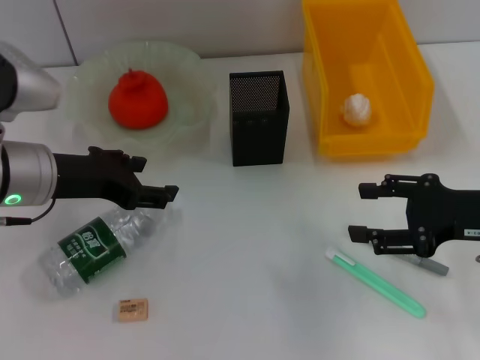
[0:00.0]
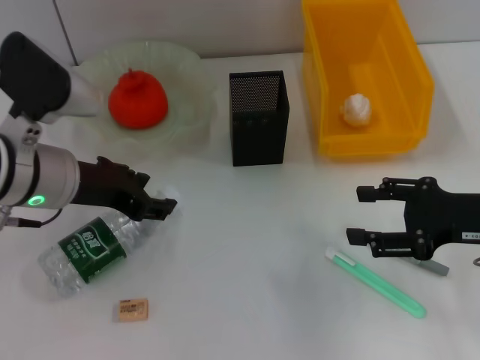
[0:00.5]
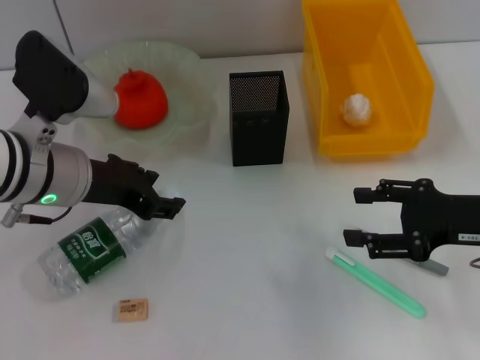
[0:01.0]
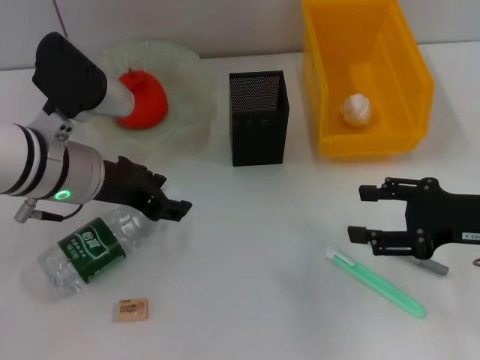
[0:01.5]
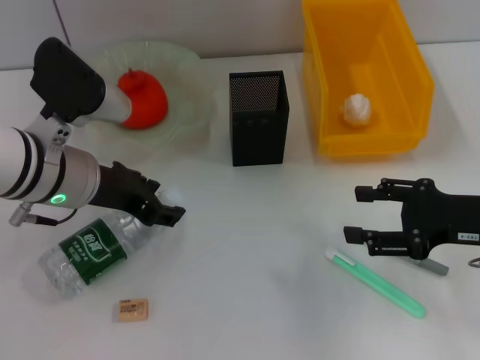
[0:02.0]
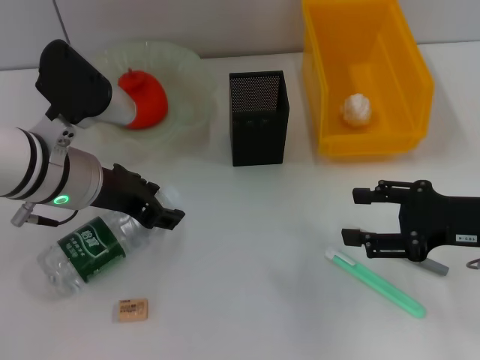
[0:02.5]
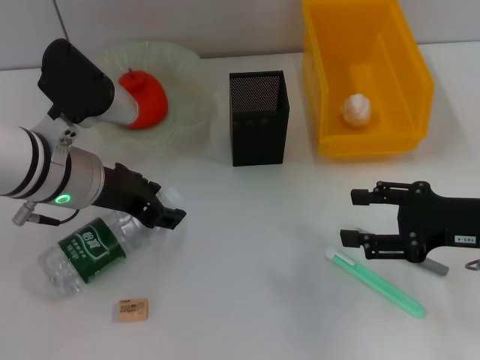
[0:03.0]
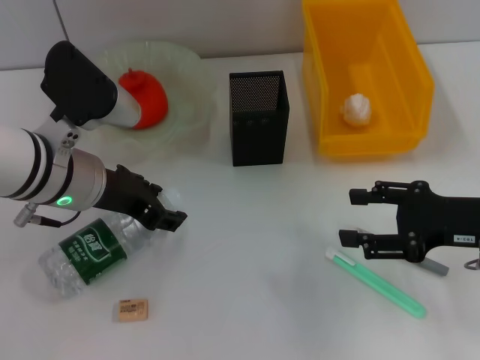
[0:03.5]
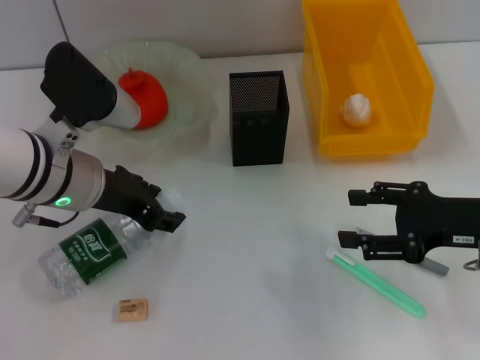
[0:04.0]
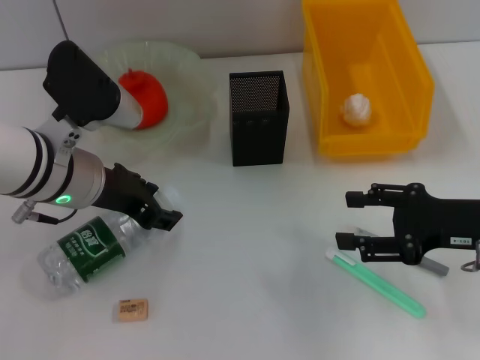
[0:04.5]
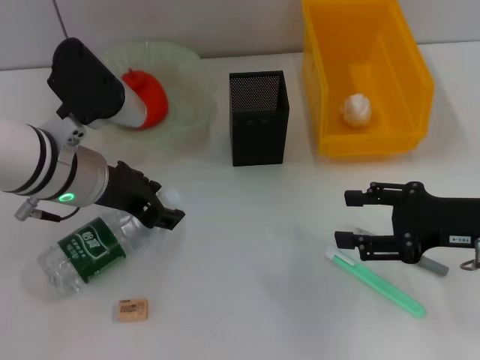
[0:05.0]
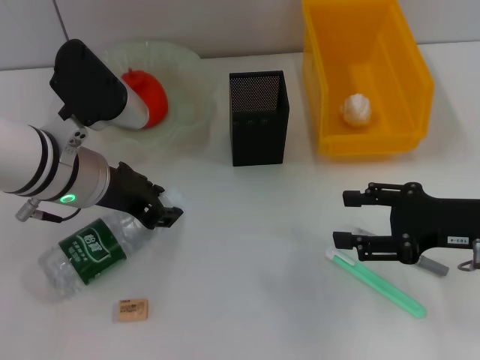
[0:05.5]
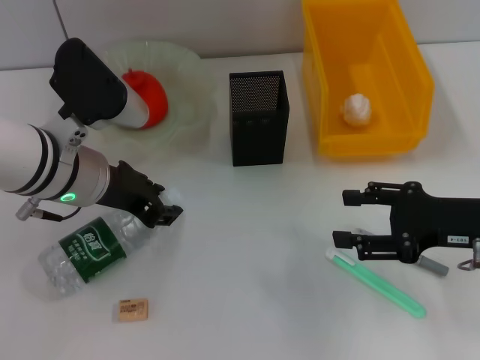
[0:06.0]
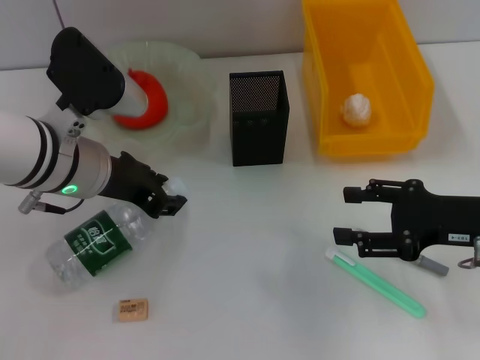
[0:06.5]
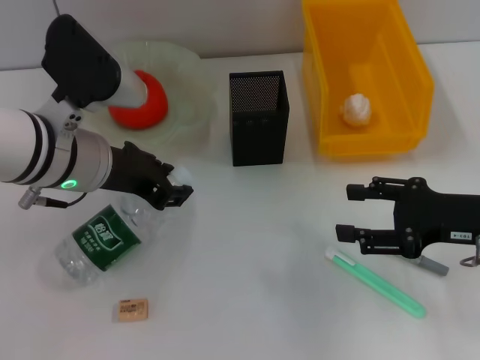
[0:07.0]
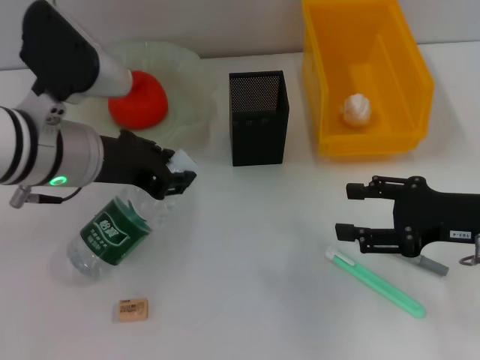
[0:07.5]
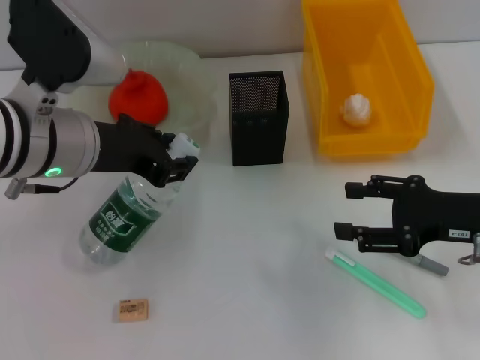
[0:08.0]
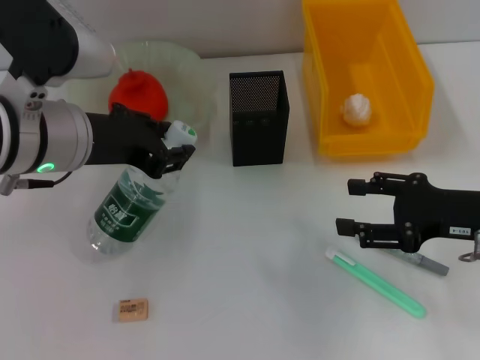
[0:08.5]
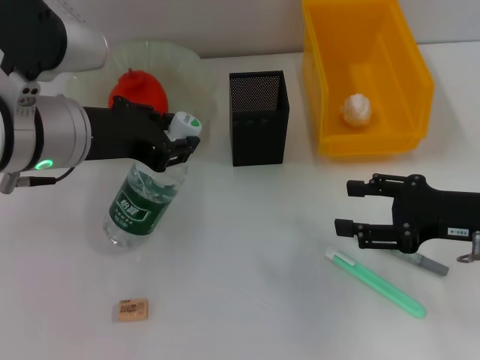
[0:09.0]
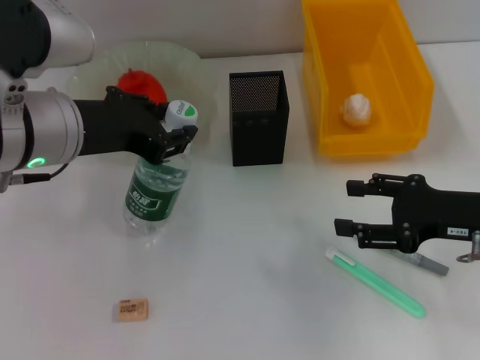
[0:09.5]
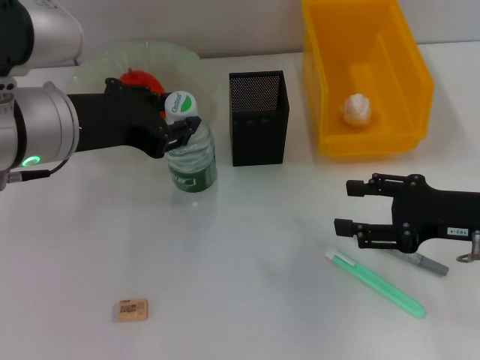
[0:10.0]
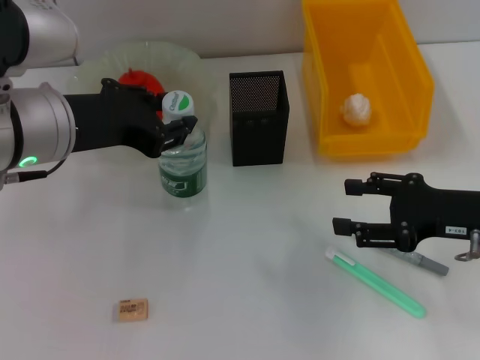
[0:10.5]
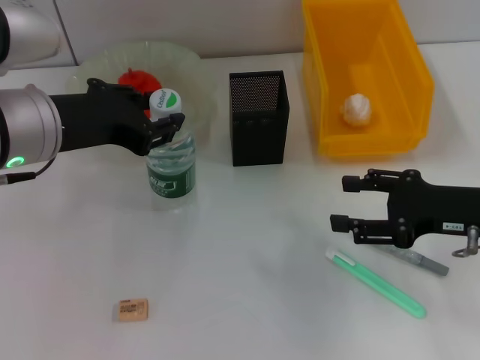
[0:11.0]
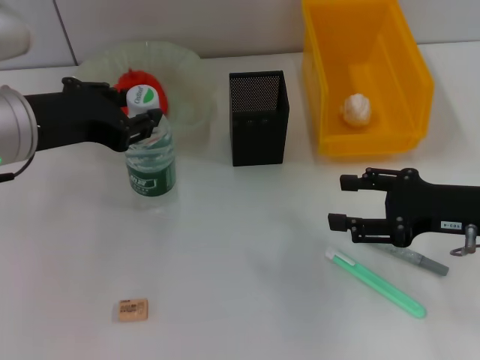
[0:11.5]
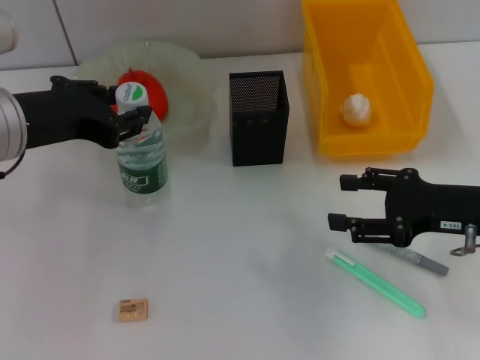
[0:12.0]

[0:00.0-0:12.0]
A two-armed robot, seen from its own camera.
Step, 0:00.0 to 0:05.5: Grab the water bottle with the left hand.
0:00.0 to 0:02.0: The grippers make only small movements.
0:02.0 to 0:04.0: Neither gripper changes place.
0:04.0 to 0:06.0: Both grippers stay put.
0:06.0 to 0:08.0: The left gripper shifts by approximately 5 cm.
0:08.0 to 0:12.0: The grippers move only a little.

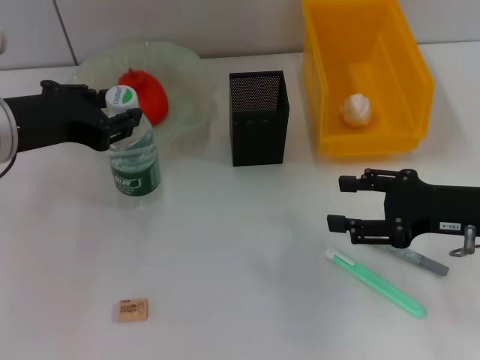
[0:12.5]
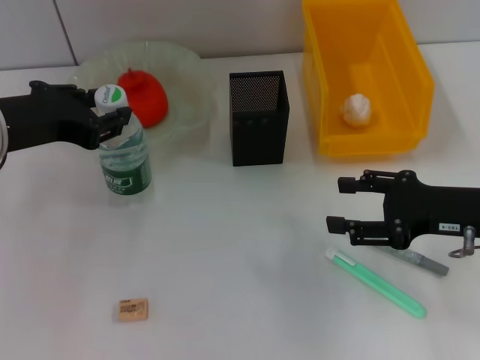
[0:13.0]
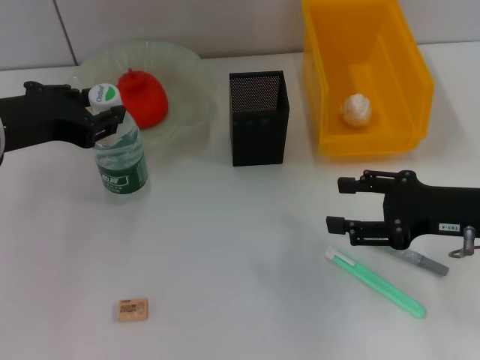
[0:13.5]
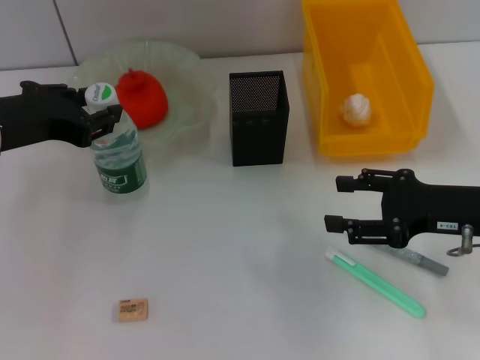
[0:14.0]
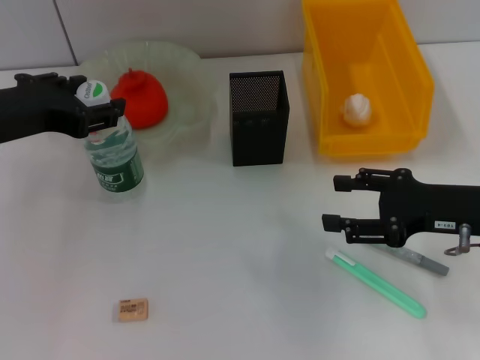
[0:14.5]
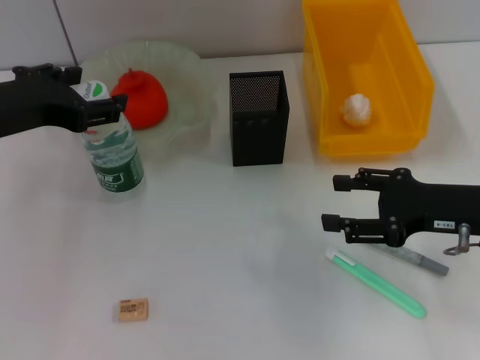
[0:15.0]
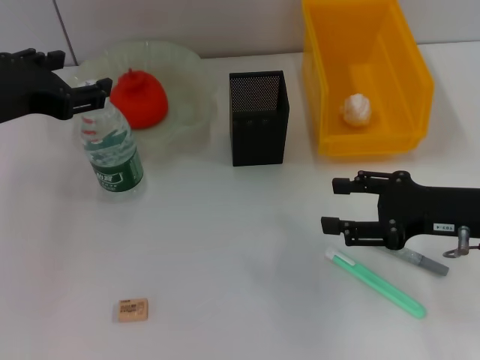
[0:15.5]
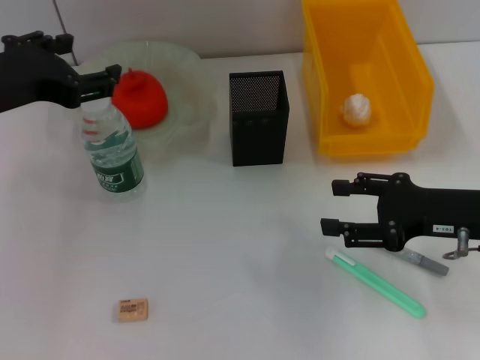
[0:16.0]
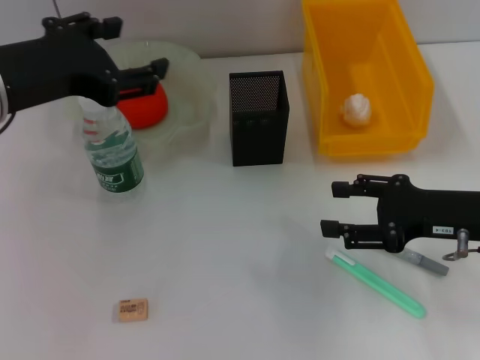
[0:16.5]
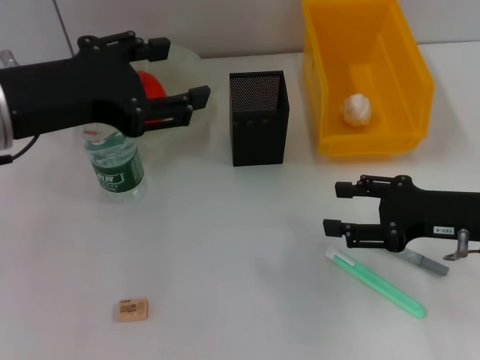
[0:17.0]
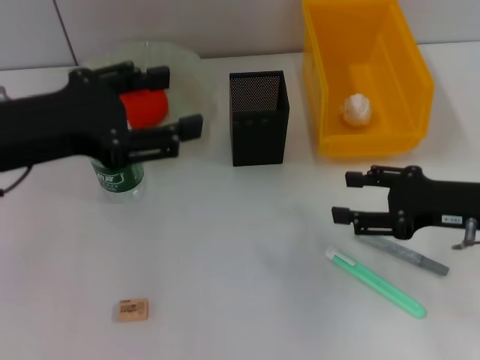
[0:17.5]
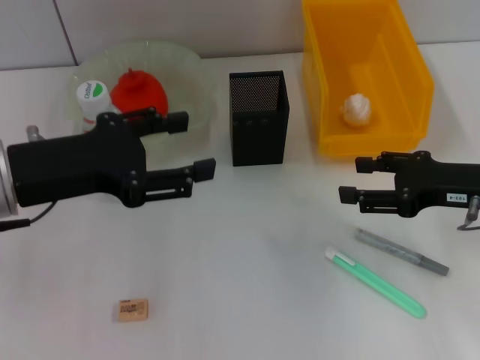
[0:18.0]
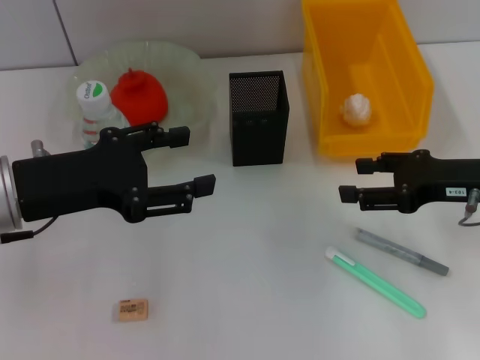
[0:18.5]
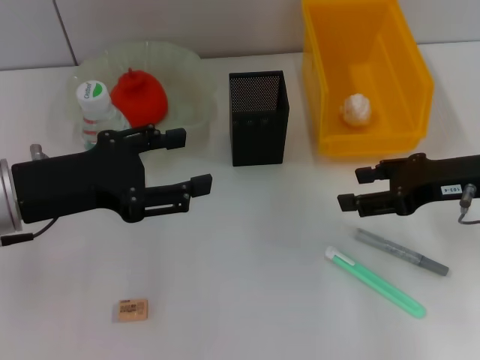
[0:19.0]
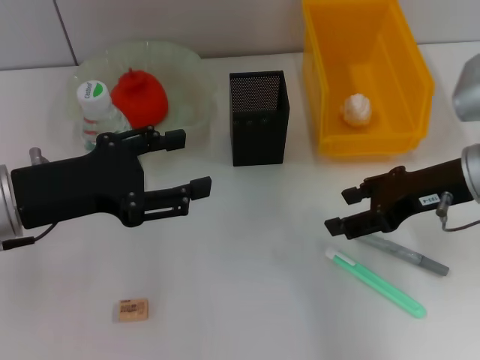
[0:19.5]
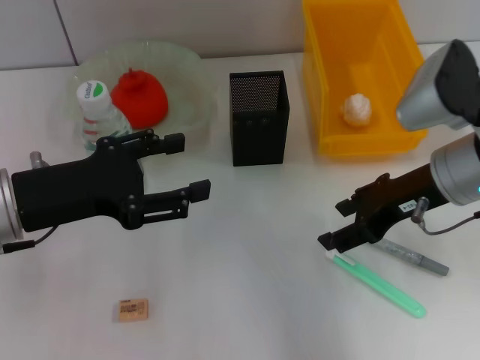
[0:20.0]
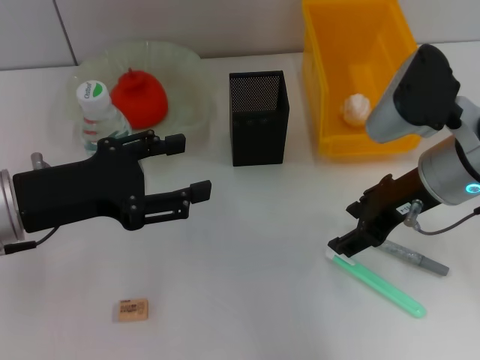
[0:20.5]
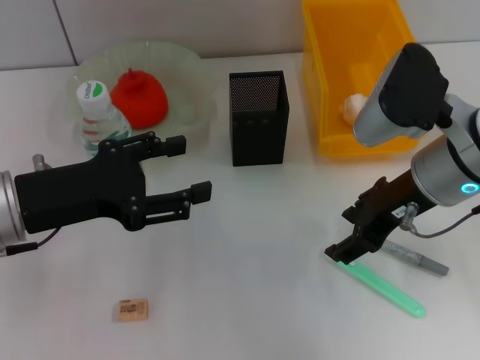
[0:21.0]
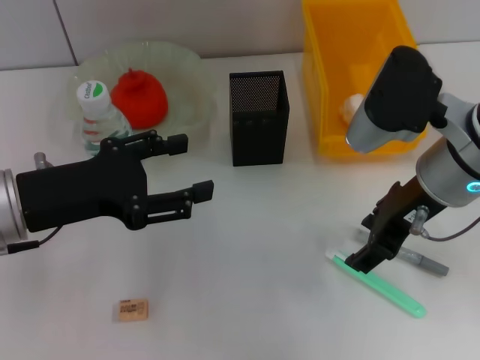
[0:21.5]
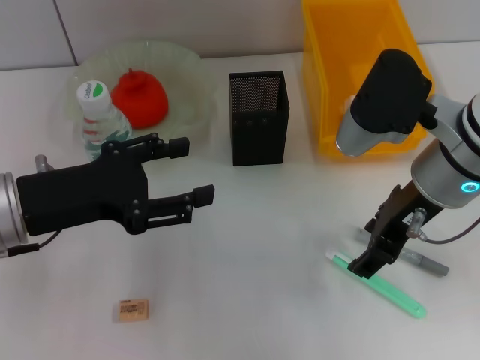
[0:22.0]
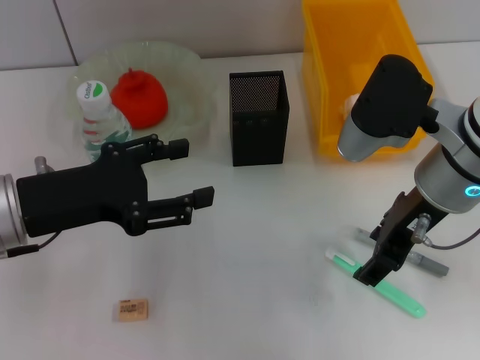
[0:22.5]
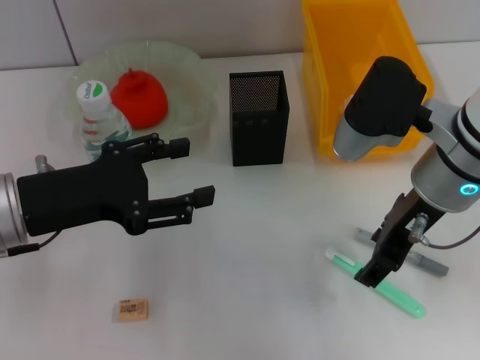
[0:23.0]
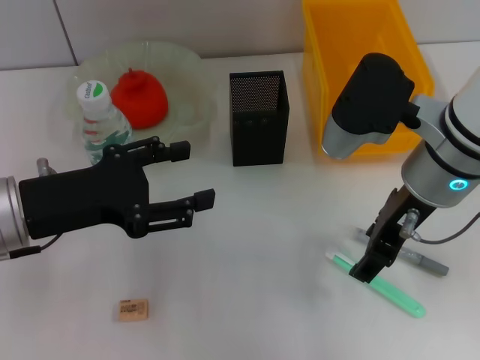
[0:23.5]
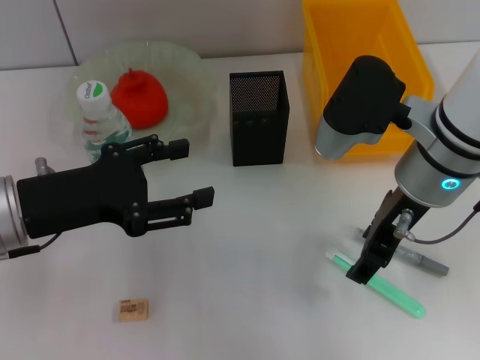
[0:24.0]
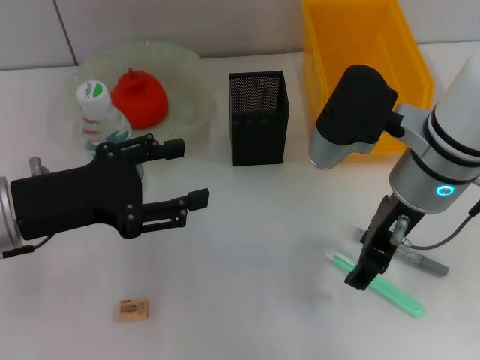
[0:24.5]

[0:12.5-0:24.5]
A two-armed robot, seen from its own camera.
Step, 0:12.5 to 0:15.0: Place the water bottle on the table with the left hand.
0:12.5 to 0:14.5: The grippers move only a little.
0:14.5 to 0:16.5: The left gripper opens its fingers.
0:16.5 to 0:18.5: The left gripper moves downward, about 5 cm.
0:18.5 to 0:20.5: The right gripper is displaced to the left by some 10 cm.
0:20.5 to 0:24.5: The grippers stay close to where they were, moving slightly.

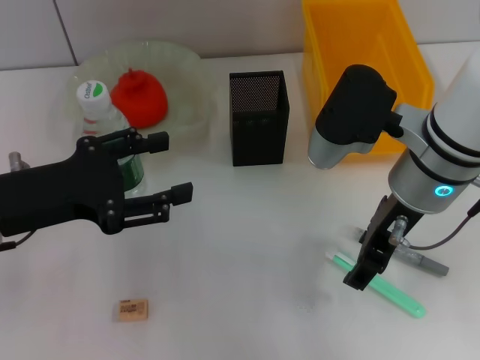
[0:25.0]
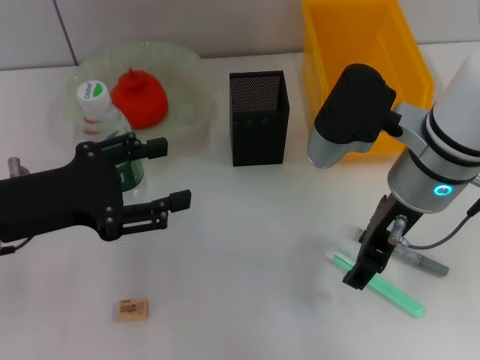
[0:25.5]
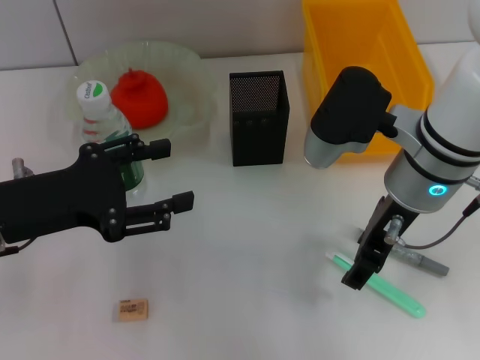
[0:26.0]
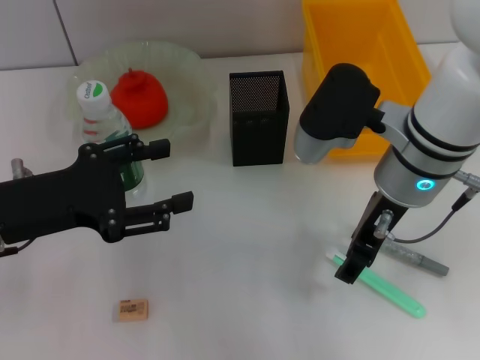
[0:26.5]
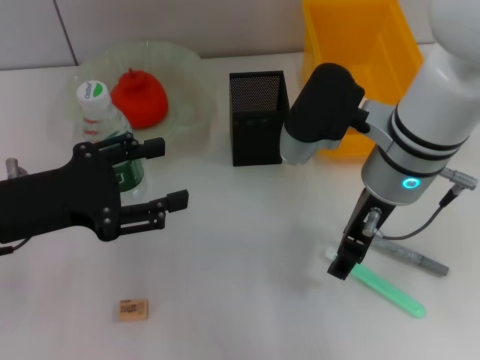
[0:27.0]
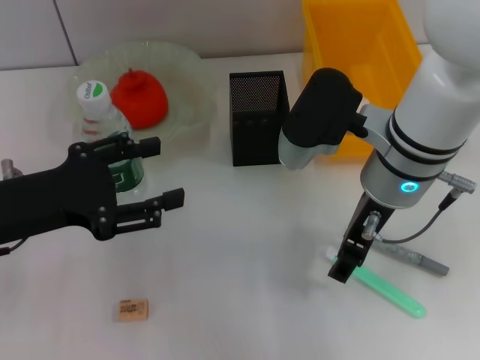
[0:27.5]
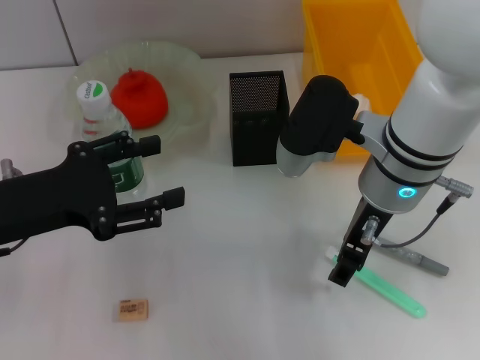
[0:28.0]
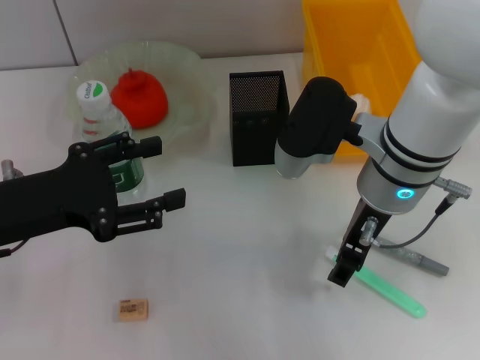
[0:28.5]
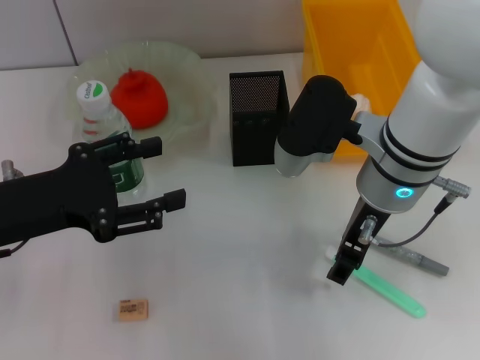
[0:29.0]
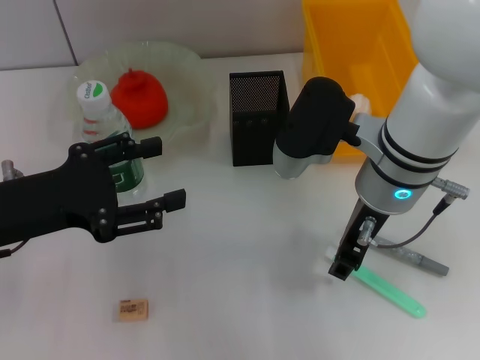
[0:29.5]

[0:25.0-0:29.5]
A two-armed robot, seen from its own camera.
0:25.0 to 0:27.0: There are only small adjustments of the grippers.
0:27.0 to 0:29.5: The two grippers keep their place.
